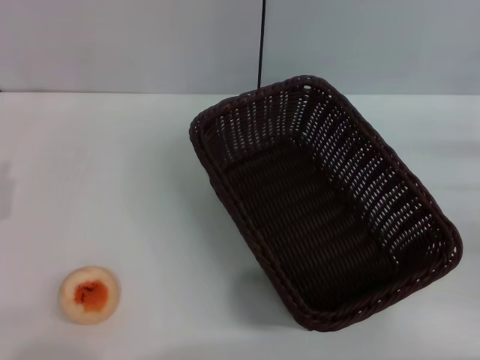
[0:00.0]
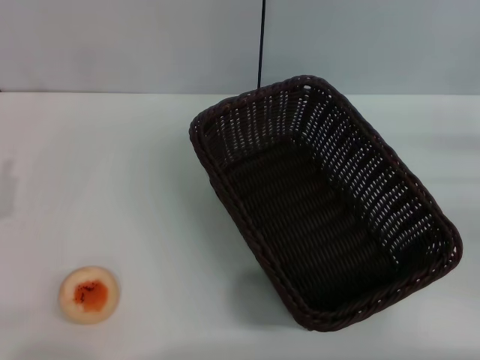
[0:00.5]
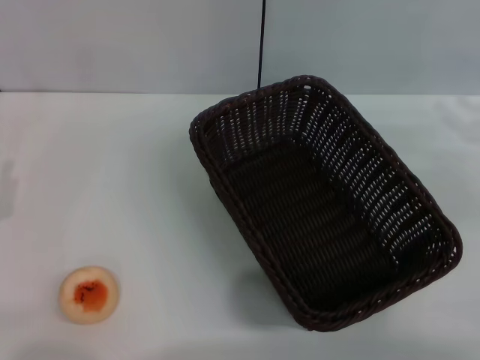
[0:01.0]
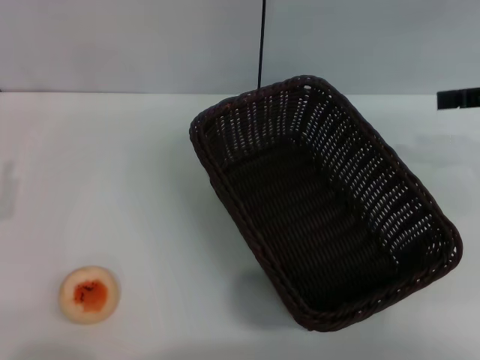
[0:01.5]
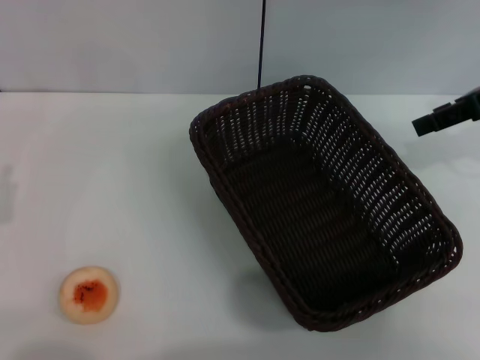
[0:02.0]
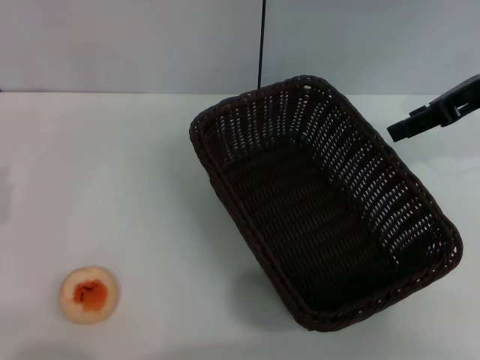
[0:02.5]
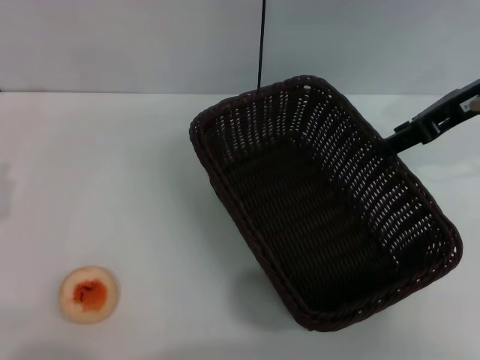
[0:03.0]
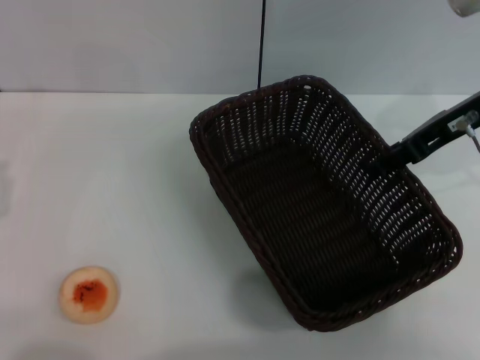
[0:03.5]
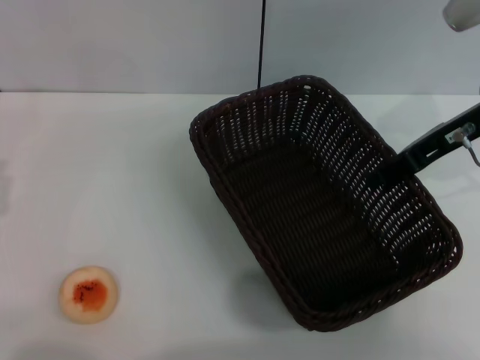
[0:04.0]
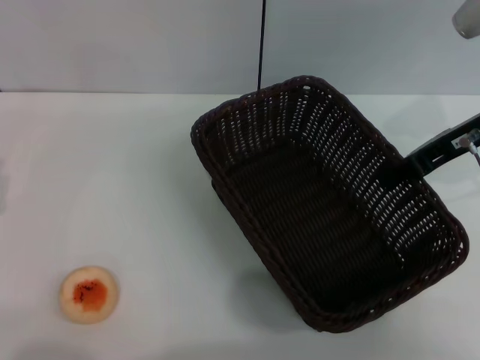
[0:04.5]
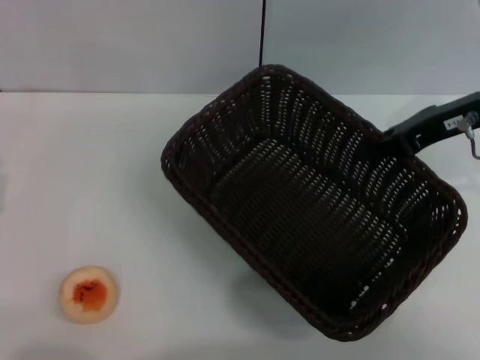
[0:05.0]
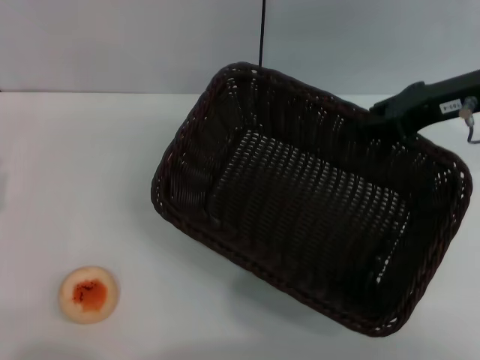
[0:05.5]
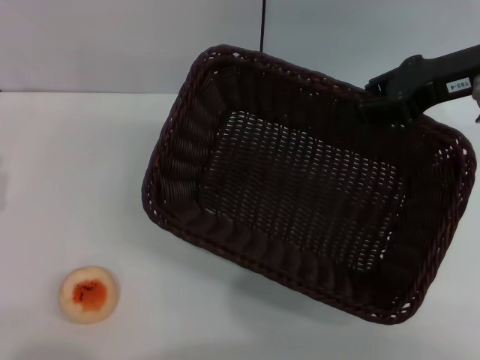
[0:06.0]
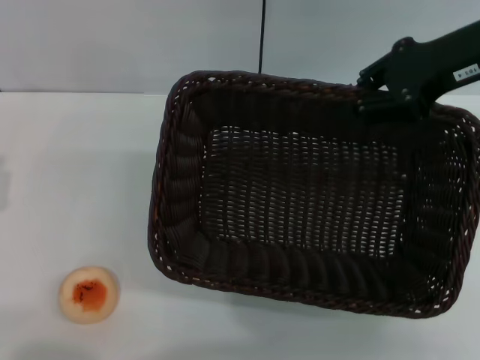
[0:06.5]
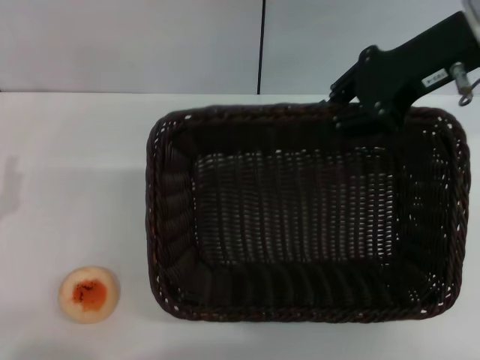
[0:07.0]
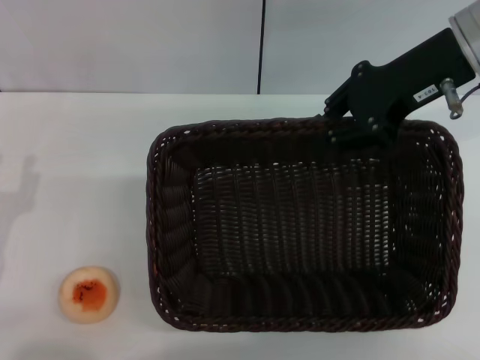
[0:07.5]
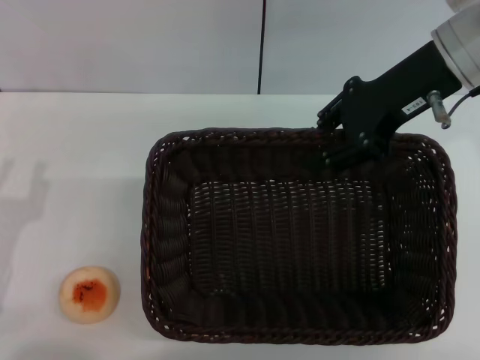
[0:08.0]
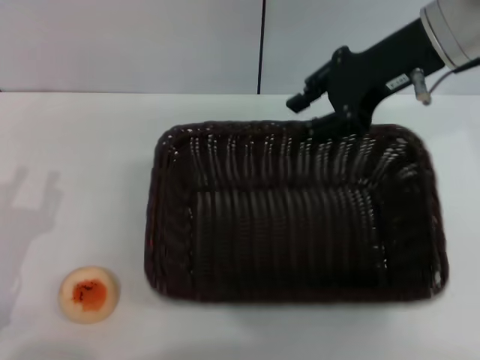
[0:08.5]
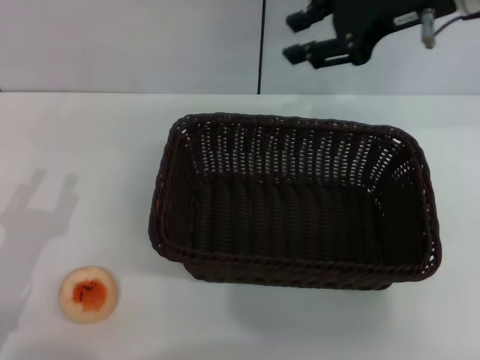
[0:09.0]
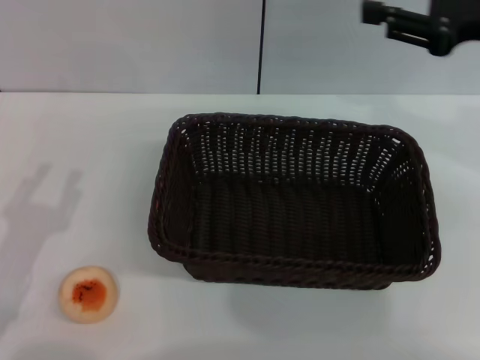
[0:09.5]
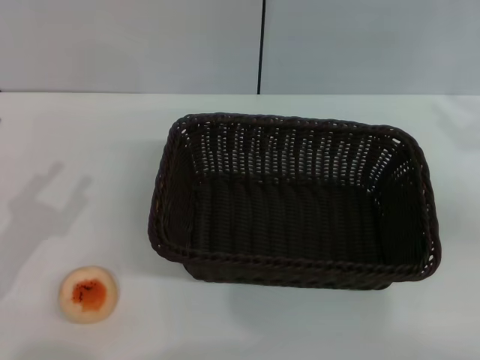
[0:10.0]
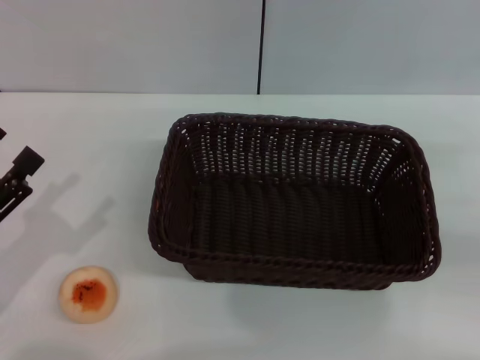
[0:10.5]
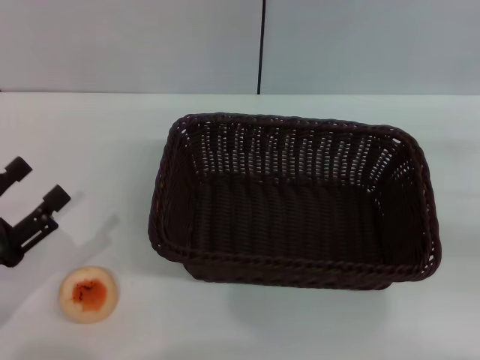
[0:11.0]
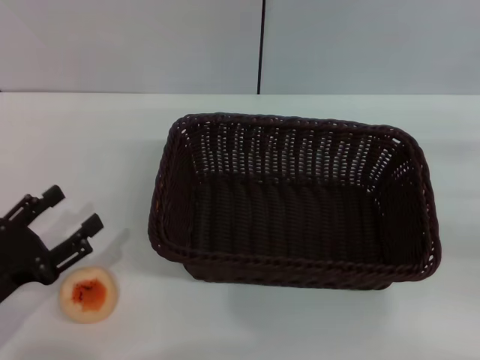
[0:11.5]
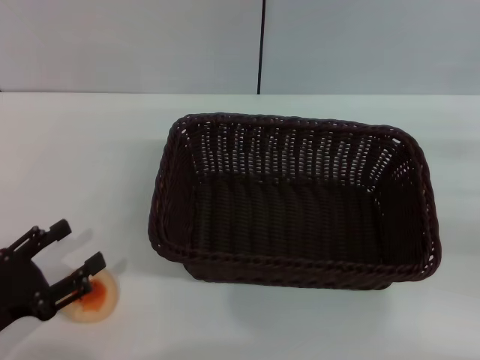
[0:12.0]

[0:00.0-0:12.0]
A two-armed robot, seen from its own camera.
Step, 0:00.0 to 0:08.5: Move the basket to the center of view with the right gripper.
0:00.0 to 0:02.0: The right gripper moves upward, forward and to the left, about 20 cm.
0:02.0 to 0:04.0: The right gripper heads to the left and downward, covering roughly 5 cm.
0:04.0 to 0:06.0: The right gripper closes up.
0:06.0 to 0:08.0: The right gripper travels to the left by roughly 5 cm.
0:08.0 to 0:10.0: The right gripper is displaced to the right, backward and downward by approximately 20 cm, and opens up.
0:10.0 to 0:12.0: The left gripper moves approximately 5 cm.

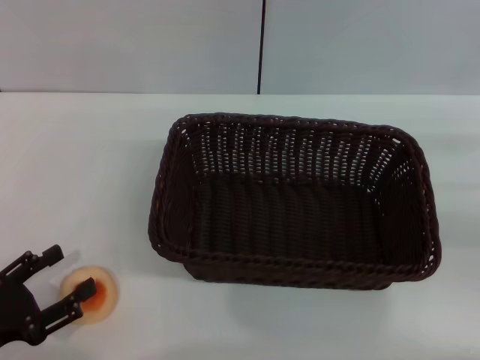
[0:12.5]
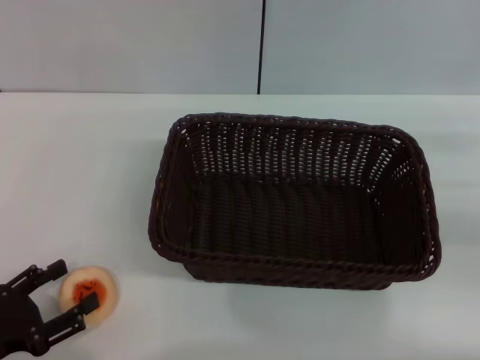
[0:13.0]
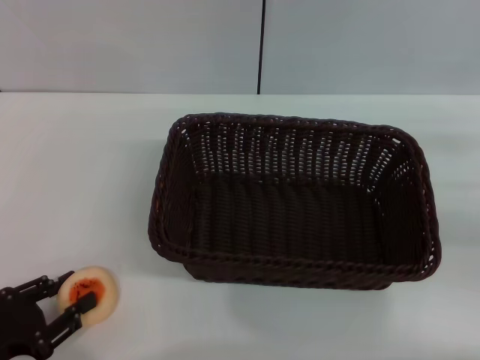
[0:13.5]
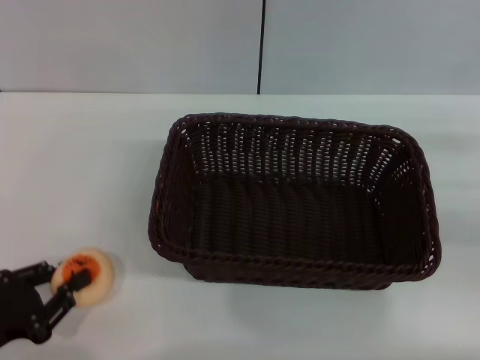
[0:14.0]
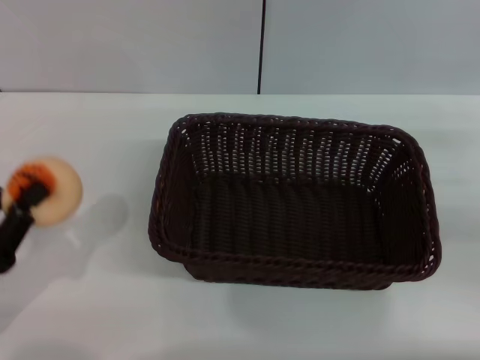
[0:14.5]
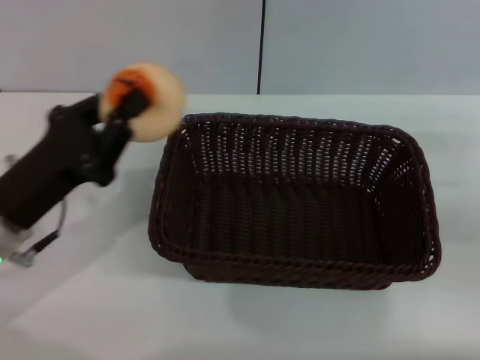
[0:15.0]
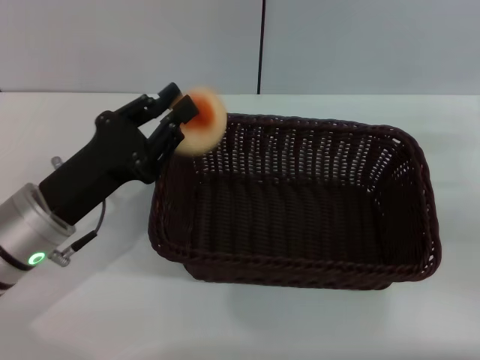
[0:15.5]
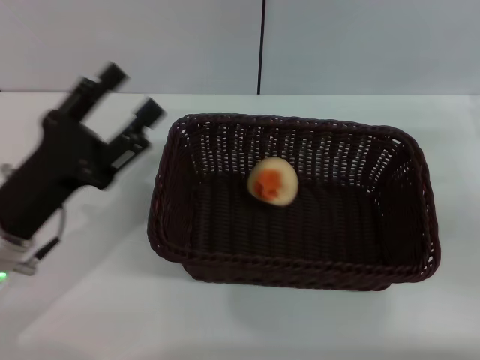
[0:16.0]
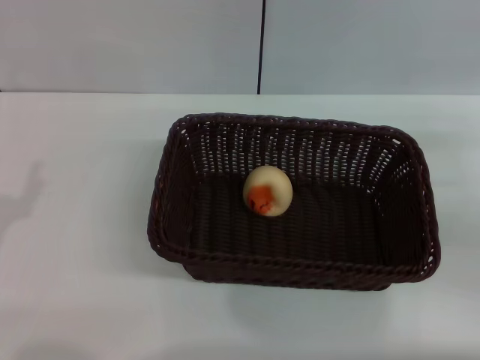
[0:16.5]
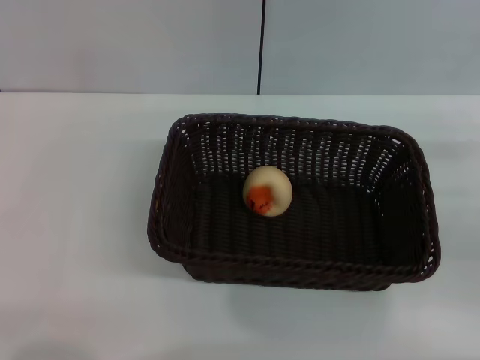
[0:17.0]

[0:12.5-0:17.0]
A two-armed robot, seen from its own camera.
Step, 0:12.5 to 0:14.5: Pick up the egg yolk pastry with the left gripper.
Step, 0:15.0 to 0:15.5: Place the egg yolk pastry into the basket with the left gripper.
0:12.5 to 0:14.5: The left gripper closes.
0:14.5 to 0:17.0: The left gripper moves approximately 10 cm to the right and comes back, and opens.

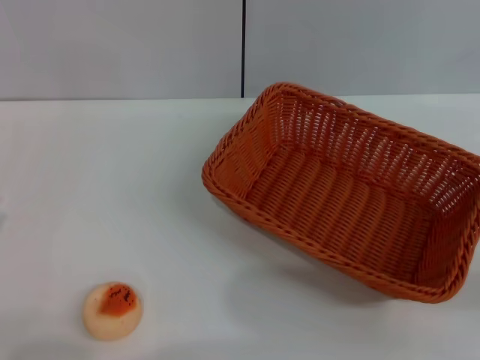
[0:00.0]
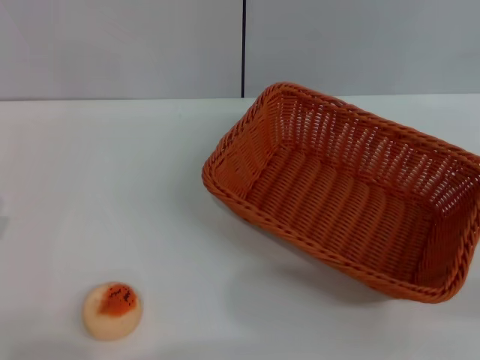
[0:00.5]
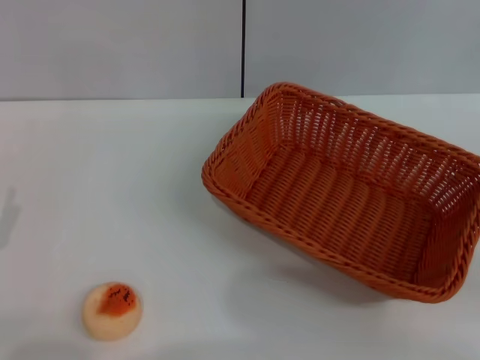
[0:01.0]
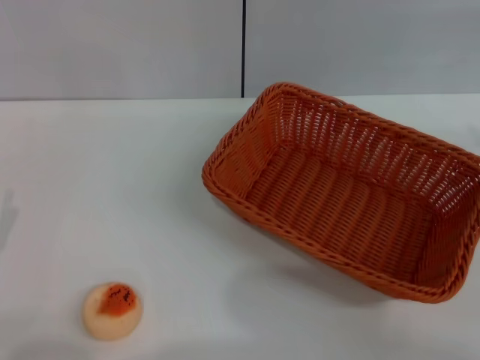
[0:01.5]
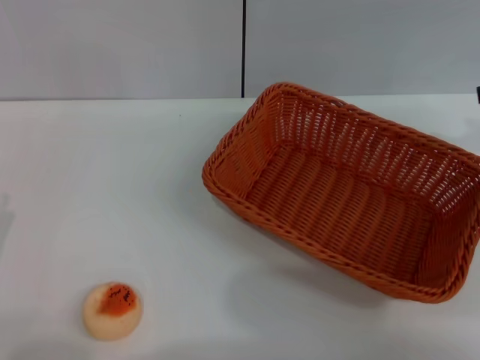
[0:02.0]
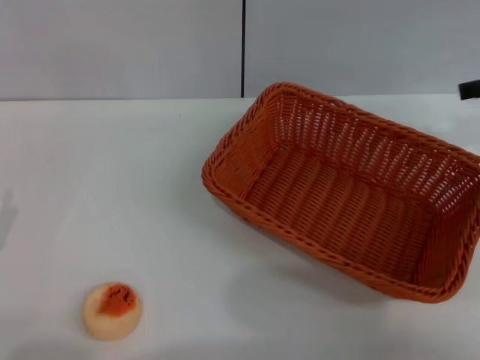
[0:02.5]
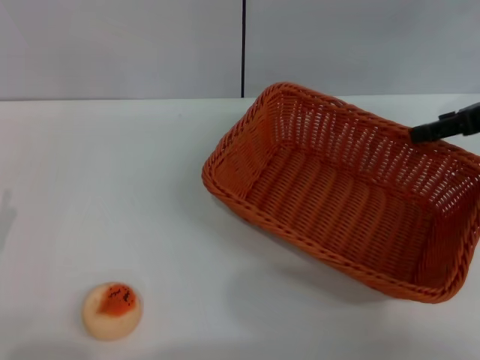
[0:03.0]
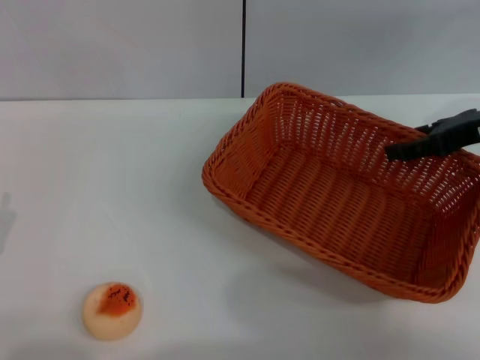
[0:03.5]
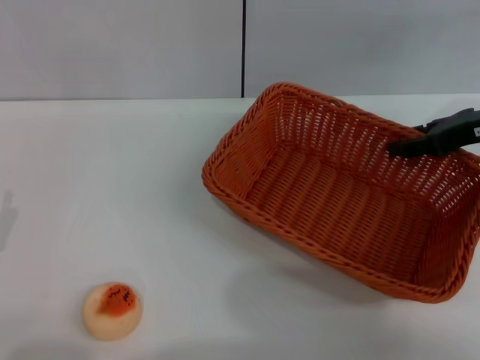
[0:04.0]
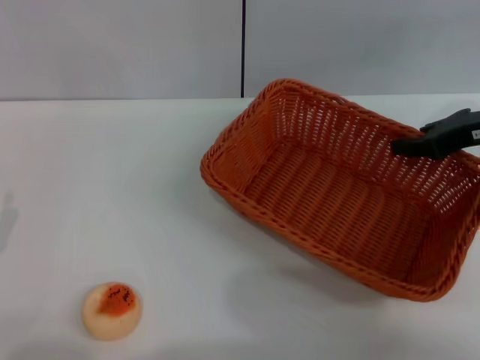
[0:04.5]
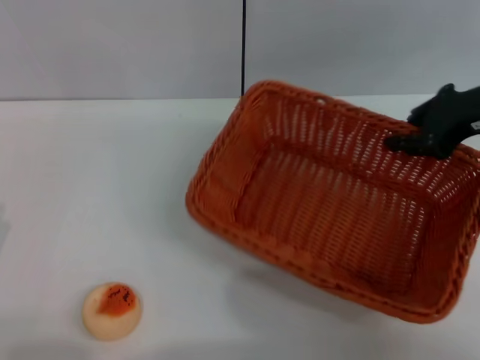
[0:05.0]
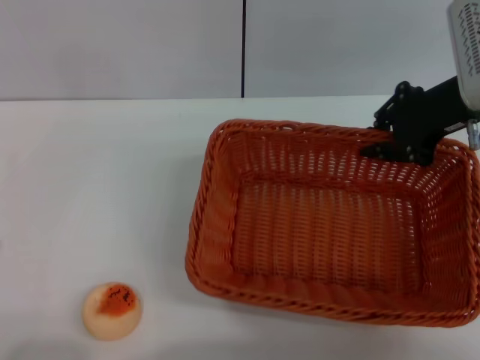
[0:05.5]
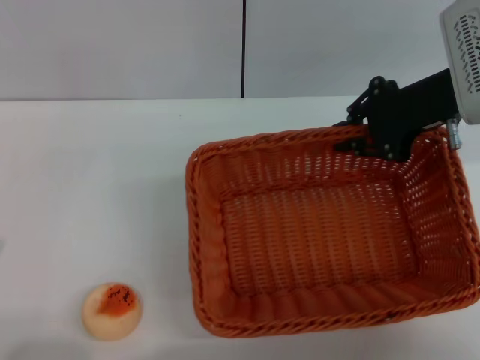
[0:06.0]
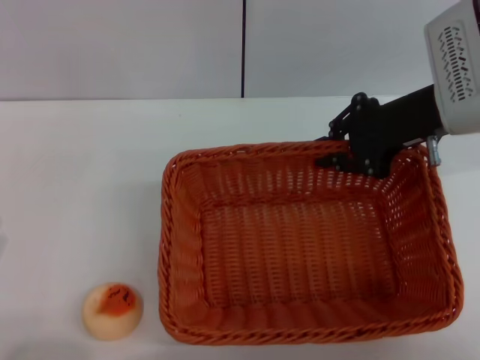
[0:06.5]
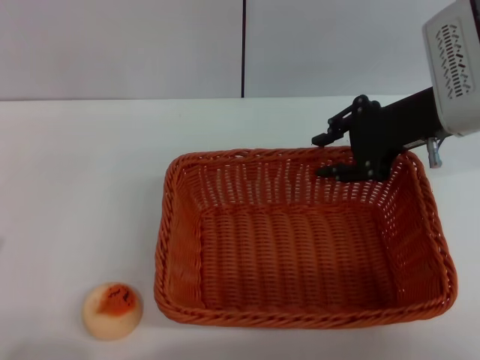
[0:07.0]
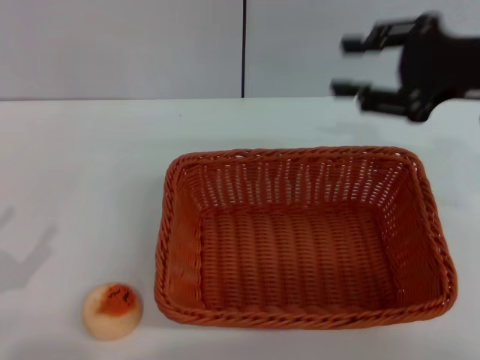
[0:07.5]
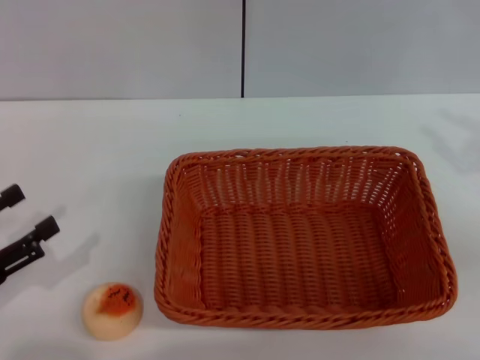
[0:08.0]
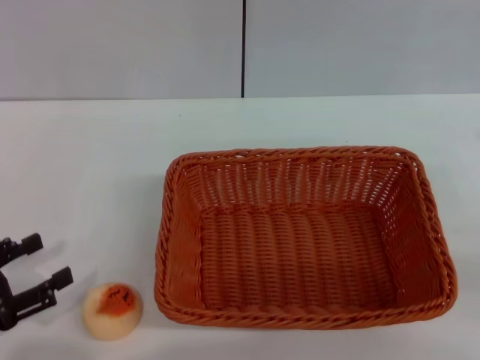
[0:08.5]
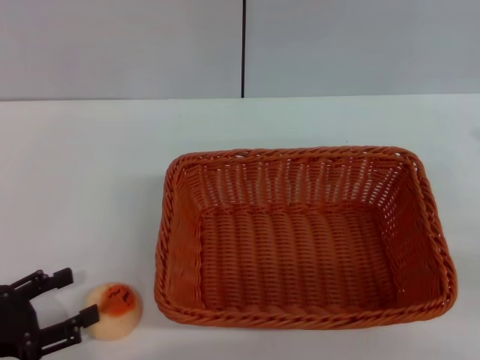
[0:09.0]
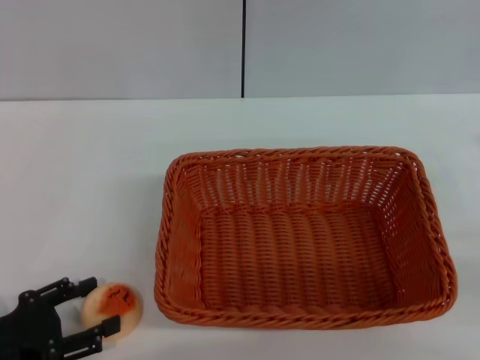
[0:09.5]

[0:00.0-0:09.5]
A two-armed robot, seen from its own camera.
Step, 0:00.0 to 0:07.0: Move the basket to the center of view with the right gripper.
0:02.0 to 0:04.0: The right gripper shifts some 10 cm downward and to the left.
0:04.0 to 0:05.5: The right gripper heads to the left, covering approximately 5 cm, and closes.
0:05.5 to 0:07.5: The right gripper heads backward, covering roughly 5 cm, and opens up.
0:07.5 to 0:09.5: The left gripper shifts by some 5 cm, while the right gripper is displaced to the right, backward and downward by some 20 cm.
